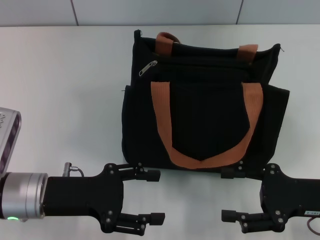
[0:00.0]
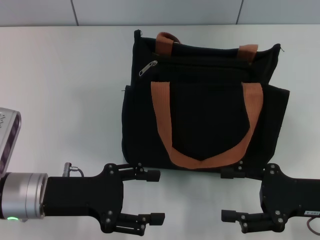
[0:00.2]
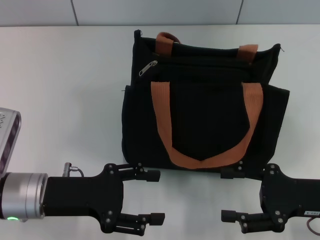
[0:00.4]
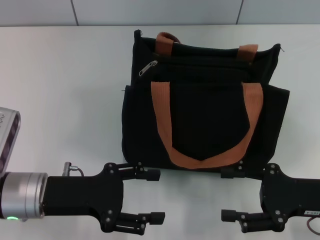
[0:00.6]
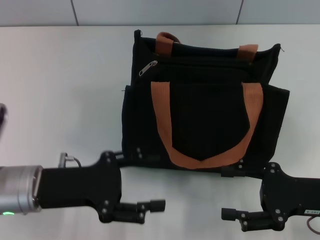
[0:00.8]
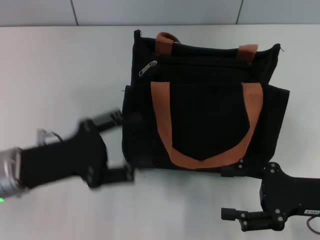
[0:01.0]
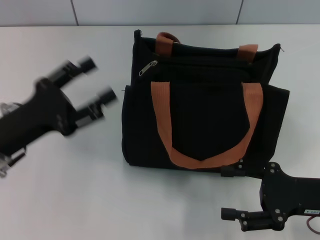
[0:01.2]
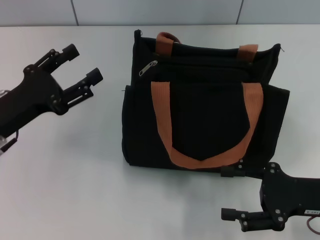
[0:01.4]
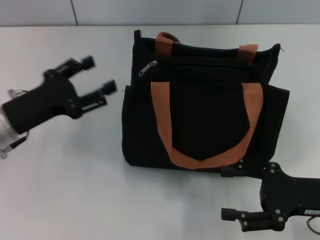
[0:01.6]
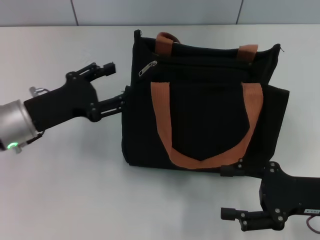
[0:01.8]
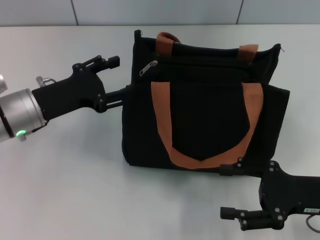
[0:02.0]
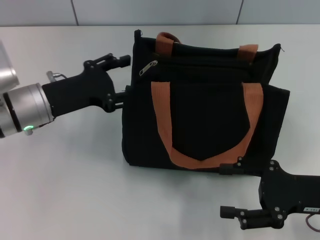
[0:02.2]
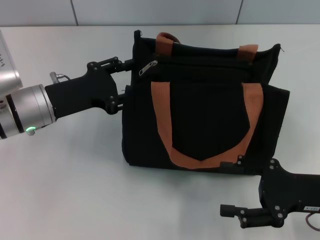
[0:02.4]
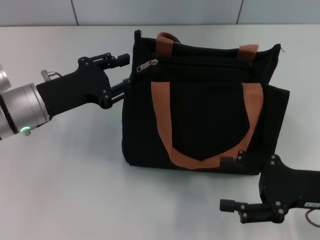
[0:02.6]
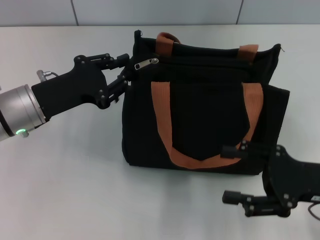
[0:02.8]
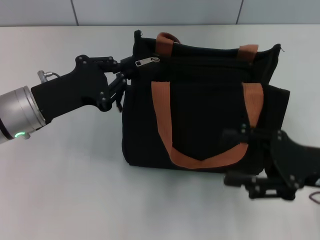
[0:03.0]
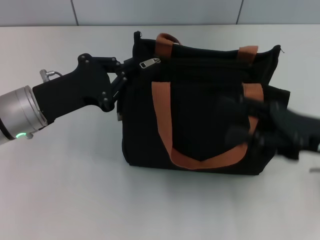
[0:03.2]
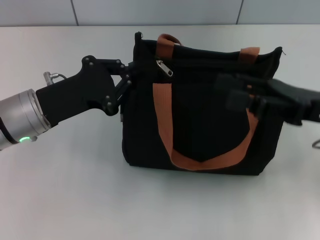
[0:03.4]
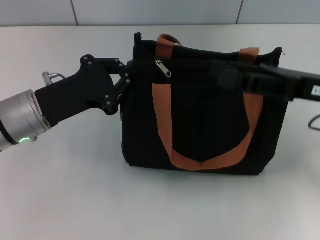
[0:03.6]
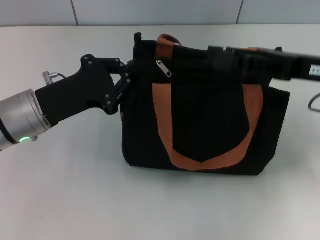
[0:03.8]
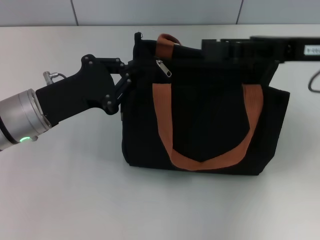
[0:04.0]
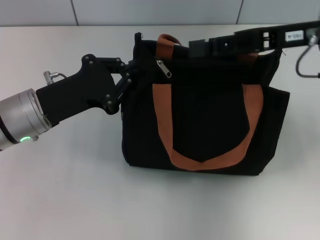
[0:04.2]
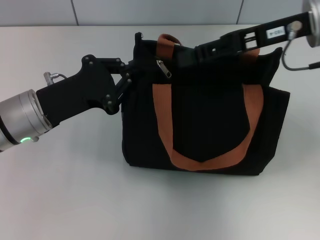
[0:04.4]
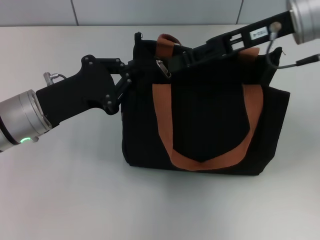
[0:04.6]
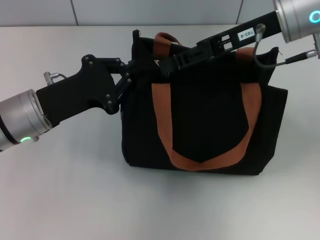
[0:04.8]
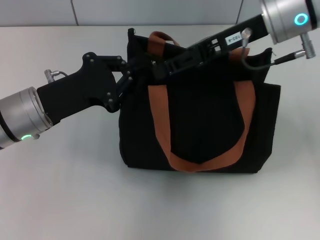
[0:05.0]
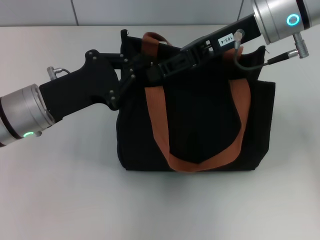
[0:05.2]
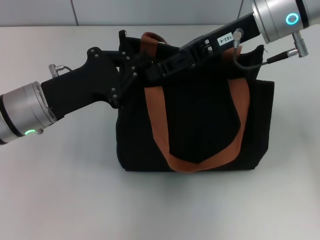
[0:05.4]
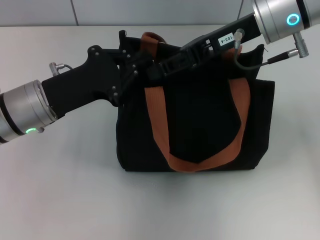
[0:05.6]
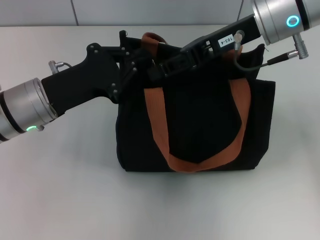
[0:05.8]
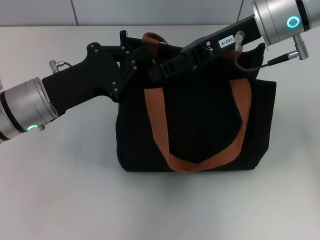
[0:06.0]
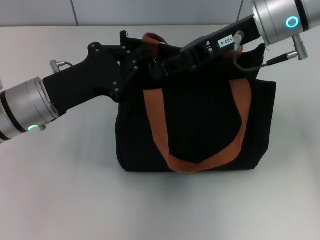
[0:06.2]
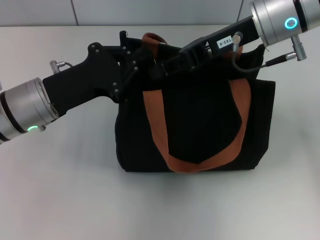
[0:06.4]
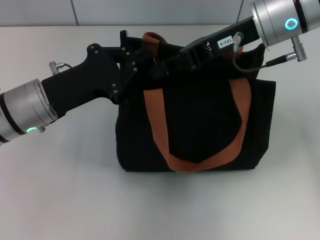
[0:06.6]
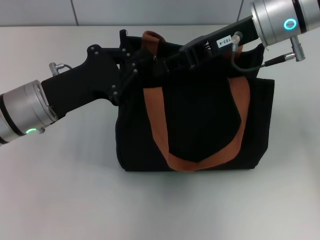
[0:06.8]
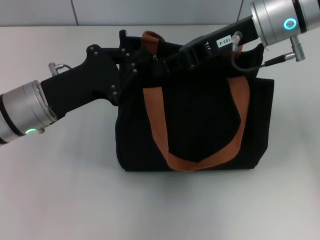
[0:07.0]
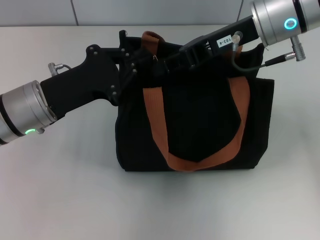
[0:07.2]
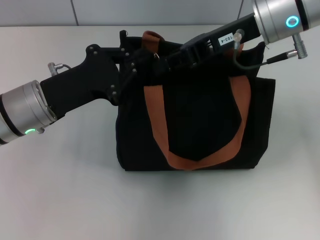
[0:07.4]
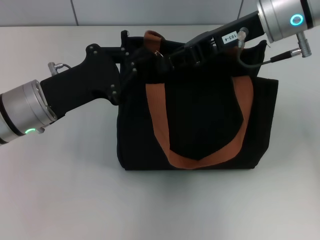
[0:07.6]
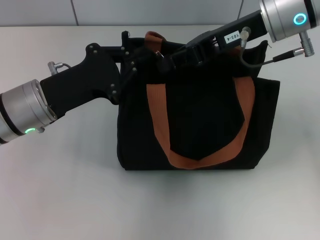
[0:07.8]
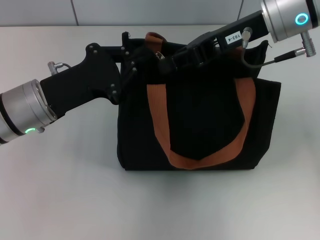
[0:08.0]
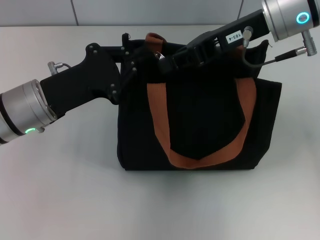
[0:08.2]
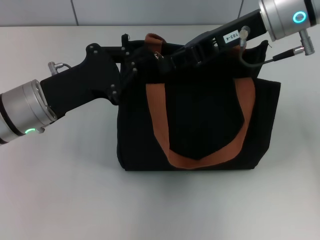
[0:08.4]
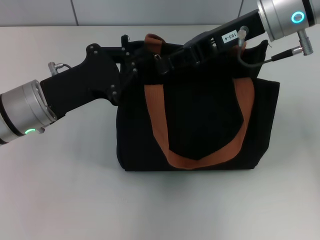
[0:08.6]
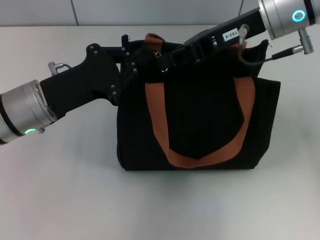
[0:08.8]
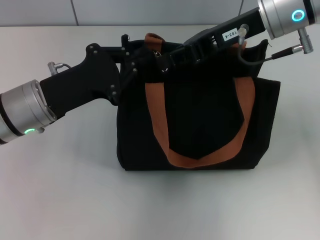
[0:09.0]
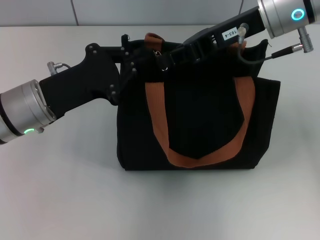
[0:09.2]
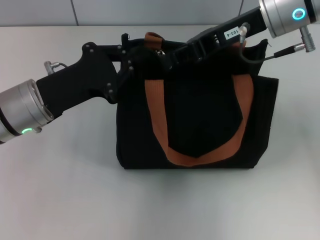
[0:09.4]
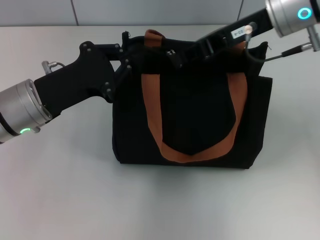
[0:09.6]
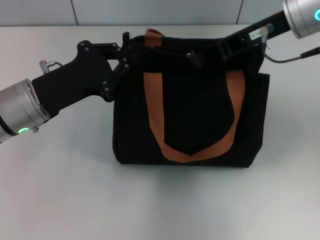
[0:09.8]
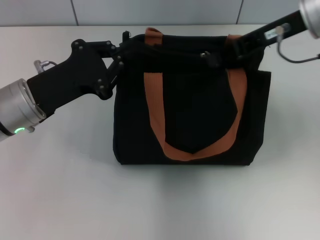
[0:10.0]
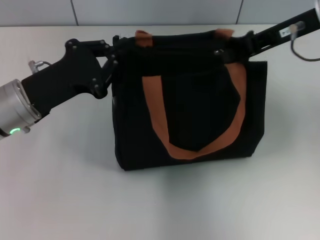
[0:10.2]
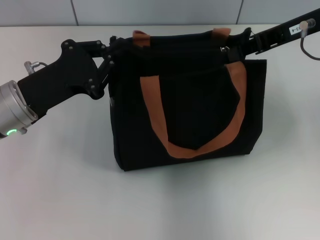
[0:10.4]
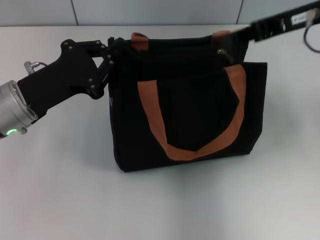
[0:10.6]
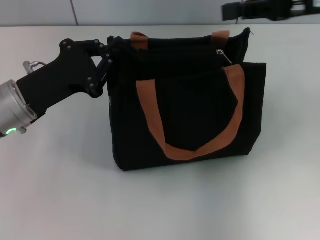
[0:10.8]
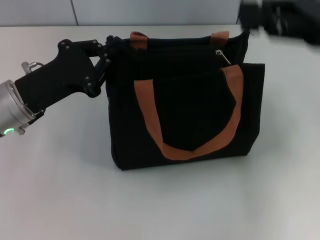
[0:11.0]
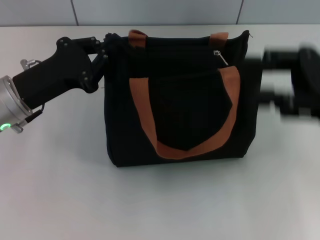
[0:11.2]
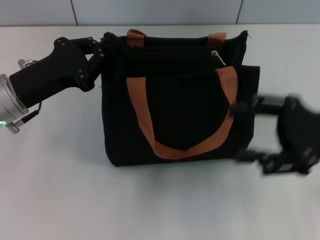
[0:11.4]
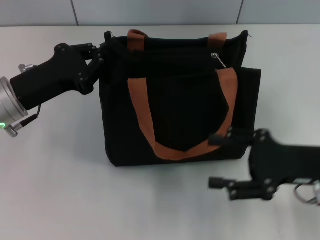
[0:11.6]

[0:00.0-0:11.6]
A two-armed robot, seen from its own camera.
Step, 0.0 to 10.4 s: Pull up the zipper with your right hand.
0.0 to 1.4 s: The left gripper heads to the left, covering some 5 cm.
1.4 to 2.8 s: The left gripper changes place by roughly 5 cm, and closes.
2.8 to 4.4 s: The right gripper is displaced forward and upward by approximately 20 cm. The left gripper closes up.
4.4 to 5.8 s: The right gripper shifts some 5 cm to the left.
5.8 to 7.2 s: The right gripper closes.
7.2 to 8.8 s: The two grippers keep their place.
8.8 to 10.2 s: The right gripper travels to the right by roughly 5 cm.
10.2 to 11.6 s: The right gripper shifts roughly 20 cm downward and backward, and opens up.

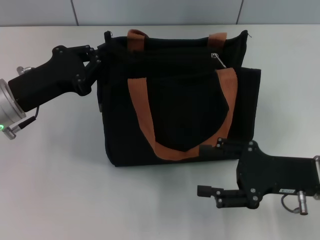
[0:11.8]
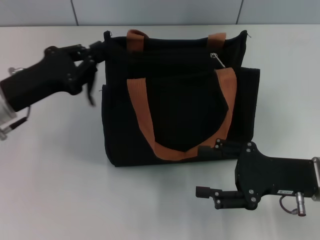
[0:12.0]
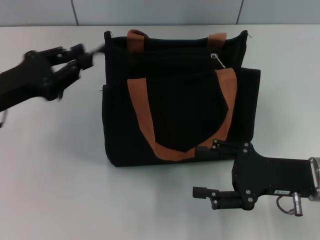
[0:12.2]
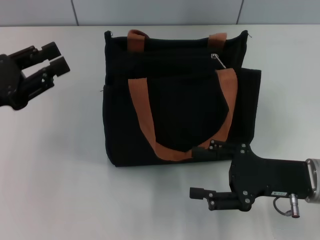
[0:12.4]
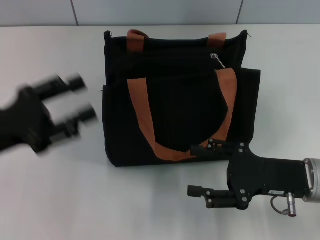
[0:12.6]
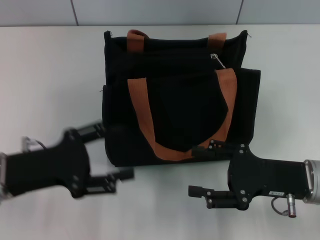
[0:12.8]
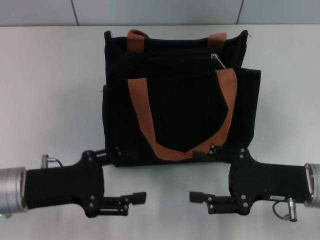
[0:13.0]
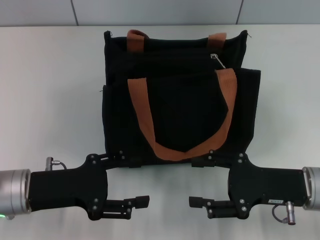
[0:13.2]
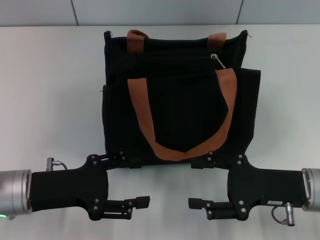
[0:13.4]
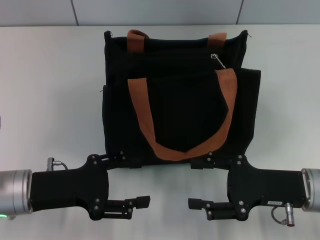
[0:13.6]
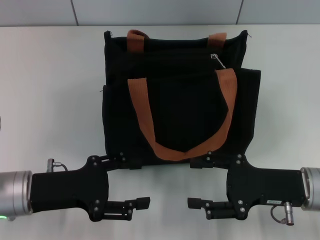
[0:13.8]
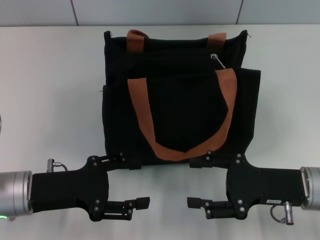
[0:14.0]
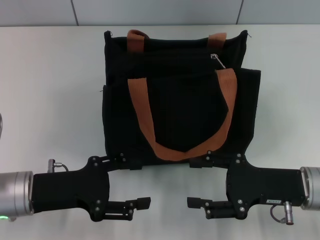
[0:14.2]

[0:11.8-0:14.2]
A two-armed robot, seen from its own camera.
11.8 to 13.0 s: The left gripper shifts approximately 10 cm backward, and opens up.
13.0 to 14.2 s: Neither gripper changes place.

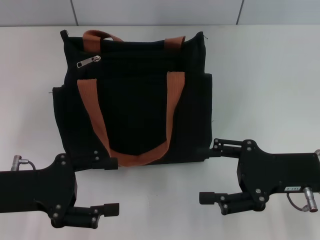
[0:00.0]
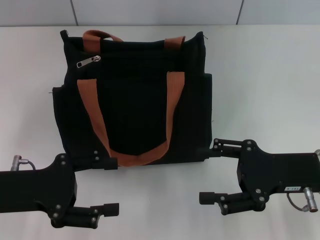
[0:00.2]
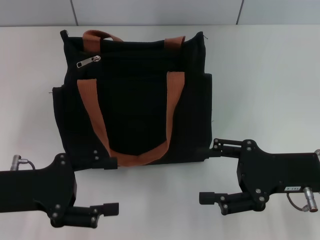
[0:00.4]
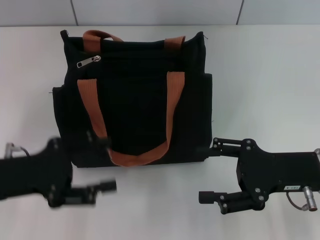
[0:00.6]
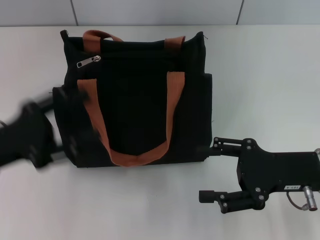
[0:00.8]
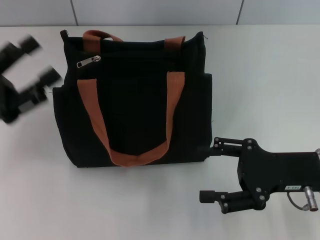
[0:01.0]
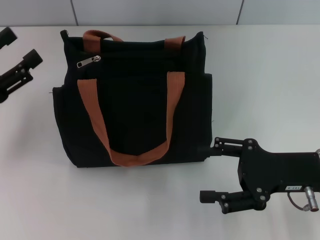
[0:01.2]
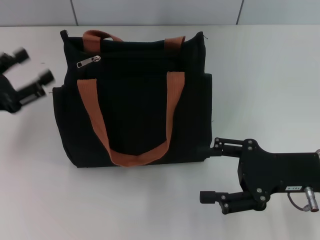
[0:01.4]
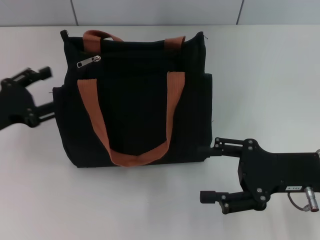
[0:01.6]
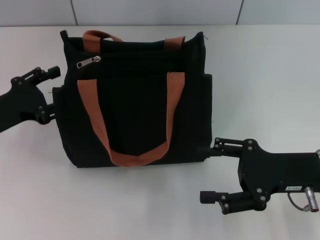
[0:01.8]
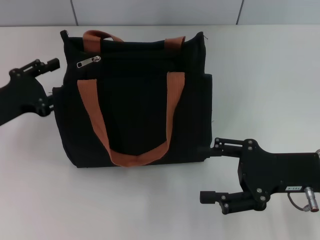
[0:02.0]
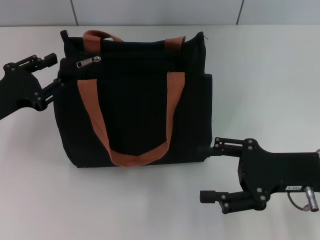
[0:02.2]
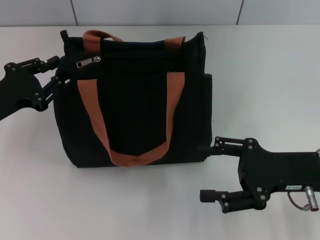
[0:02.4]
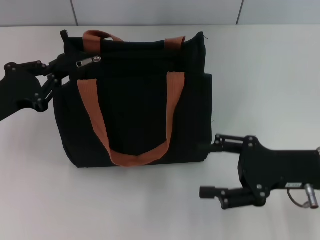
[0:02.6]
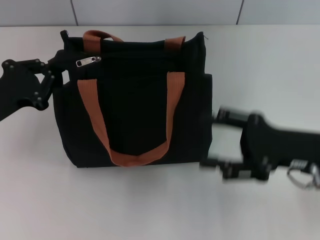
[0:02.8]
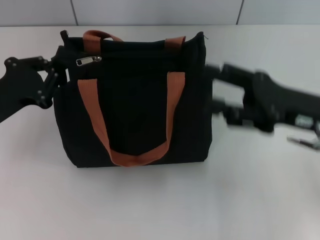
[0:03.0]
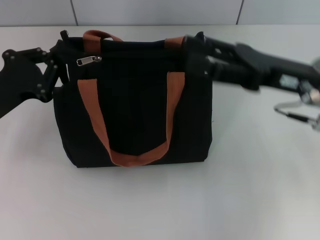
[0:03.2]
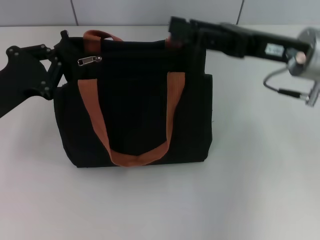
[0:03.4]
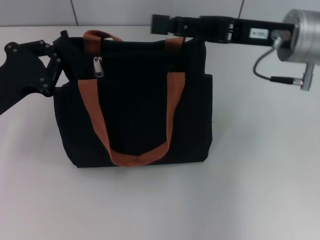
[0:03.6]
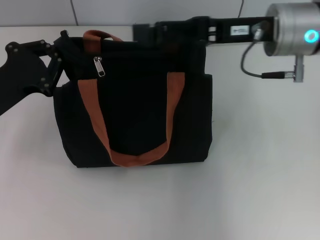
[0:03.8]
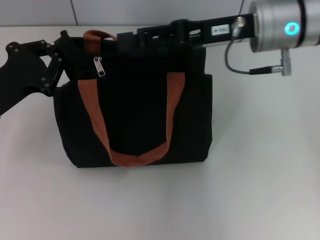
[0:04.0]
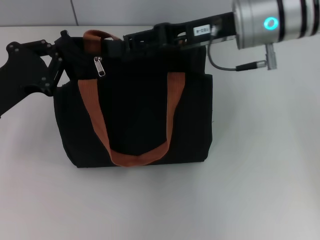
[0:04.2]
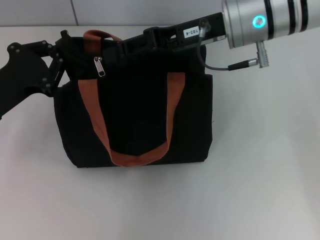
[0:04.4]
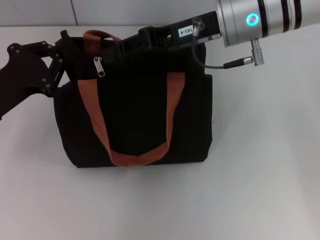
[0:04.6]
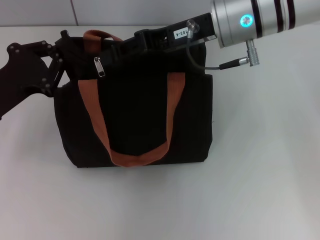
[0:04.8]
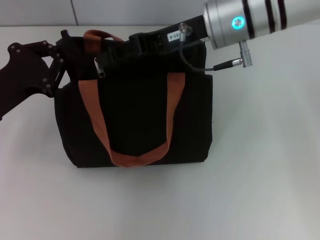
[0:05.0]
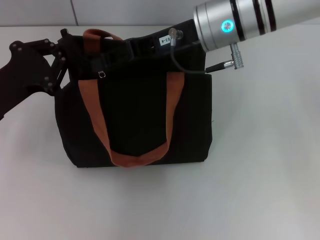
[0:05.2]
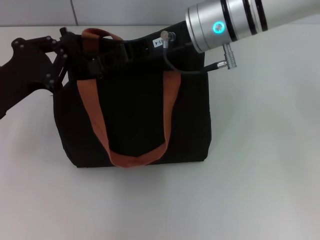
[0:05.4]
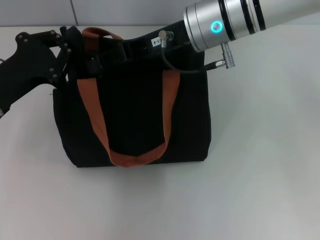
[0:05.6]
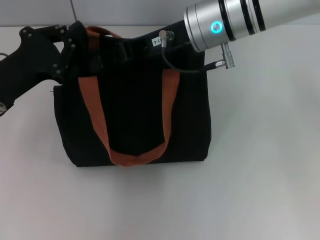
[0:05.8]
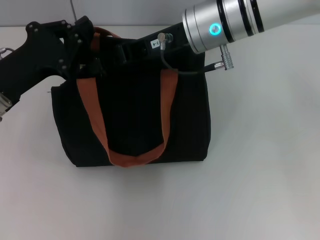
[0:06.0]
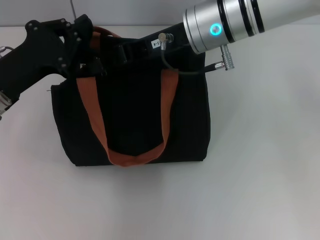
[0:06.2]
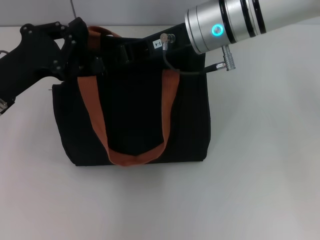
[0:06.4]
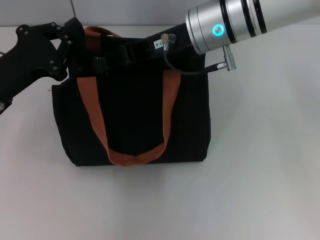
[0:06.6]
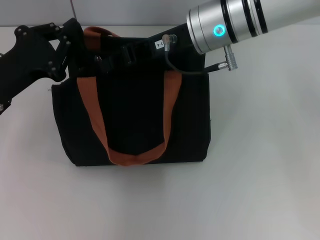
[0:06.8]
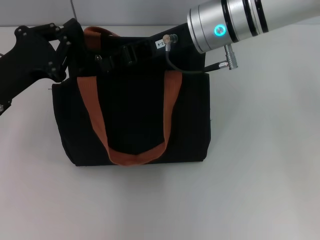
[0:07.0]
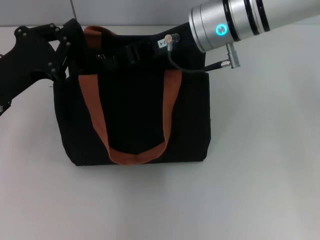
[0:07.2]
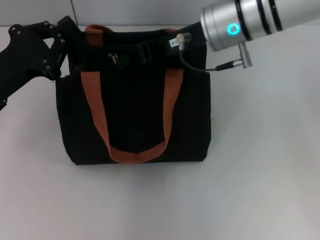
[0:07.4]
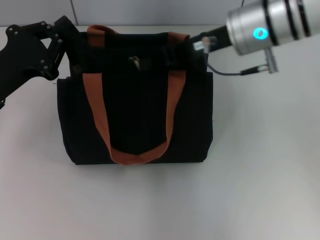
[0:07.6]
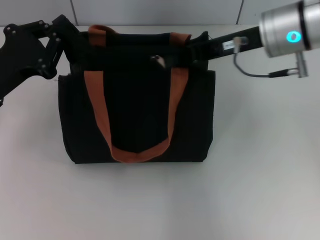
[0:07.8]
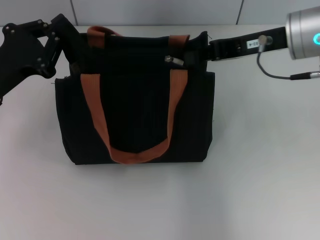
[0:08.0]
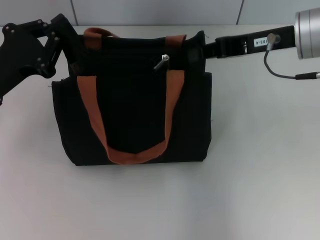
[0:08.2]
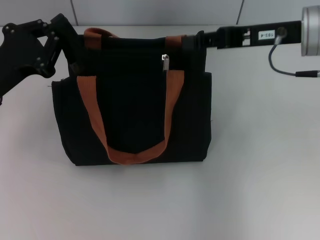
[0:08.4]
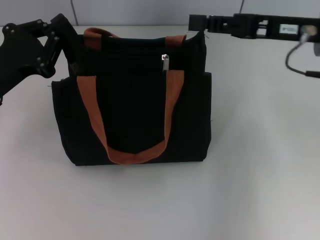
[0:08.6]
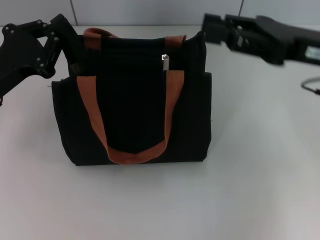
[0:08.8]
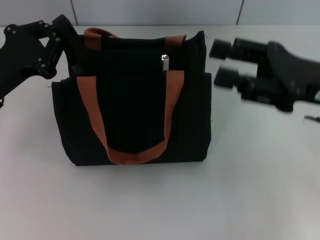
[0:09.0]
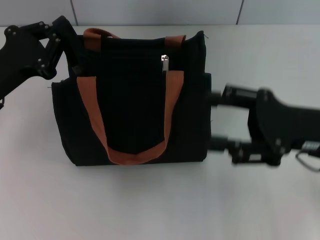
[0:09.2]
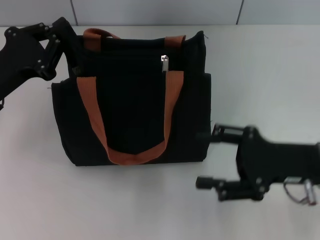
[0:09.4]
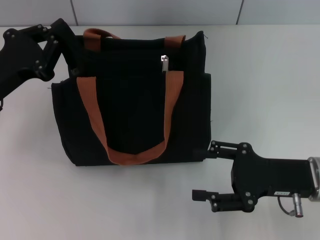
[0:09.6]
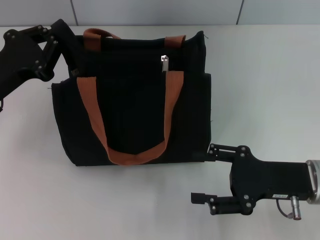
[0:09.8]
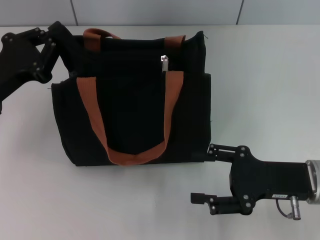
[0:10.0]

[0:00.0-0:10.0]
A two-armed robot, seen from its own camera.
Step, 0.0 to 8.2 s: Pull up the zipper with your right hand.
0.0 to 1.4 s: The left gripper moves to the left, approximately 5 cm.
1.4 to 2.8 s: The left gripper closes.
2.8 to 4.2 s: The right gripper moves forward, to the left and upward, roughly 20 cm.
4.2 to 5.8 s: The right gripper goes some 5 cm to the left, and closes its fingers.
5.8 to 7.2 s: The right gripper closes its fingers.
7.2 to 8.6 s: The right gripper goes some 15 cm to the right.
8.6 to 10.0 s: The right gripper travels downward and backward by approximately 20 cm, and opens its fingers.
